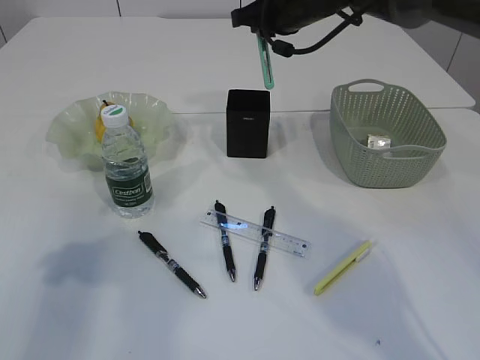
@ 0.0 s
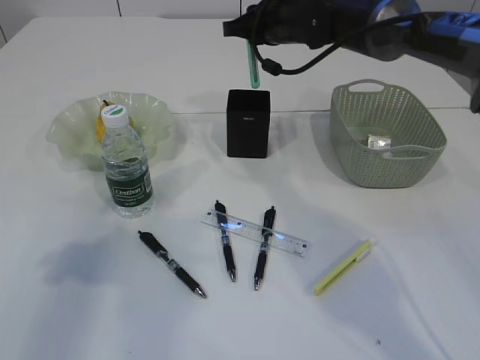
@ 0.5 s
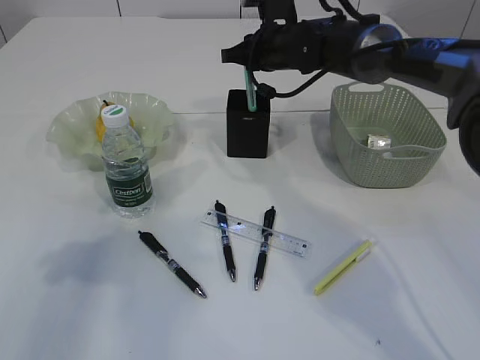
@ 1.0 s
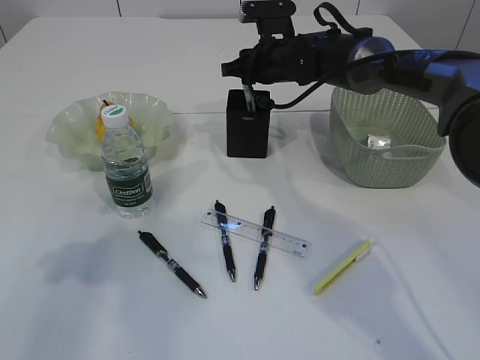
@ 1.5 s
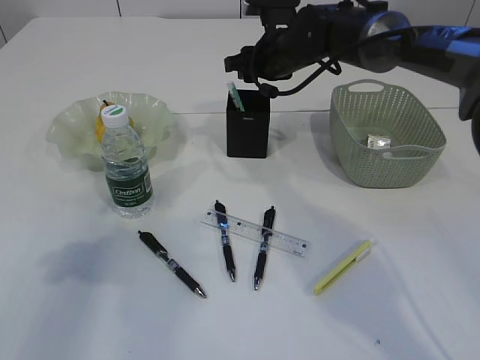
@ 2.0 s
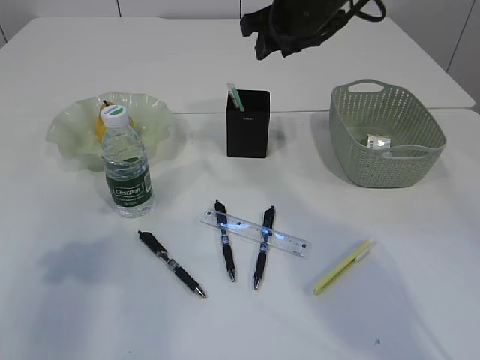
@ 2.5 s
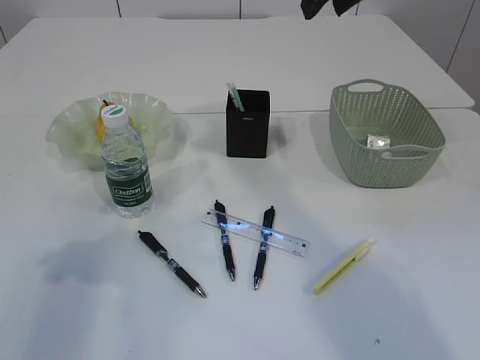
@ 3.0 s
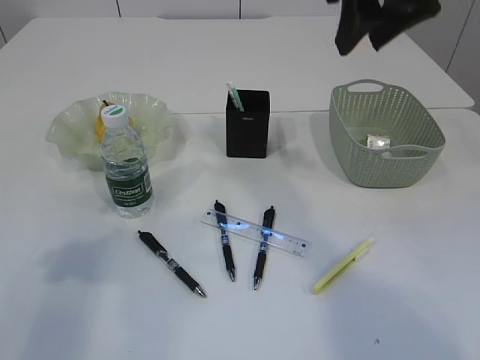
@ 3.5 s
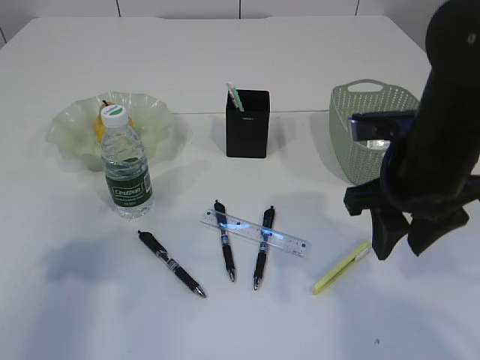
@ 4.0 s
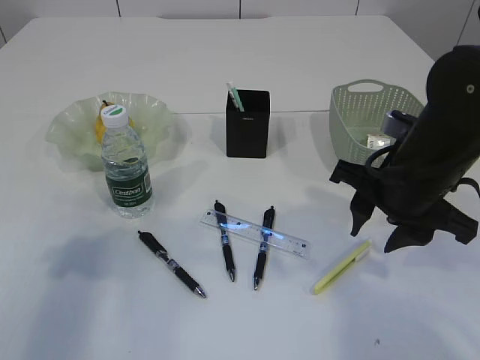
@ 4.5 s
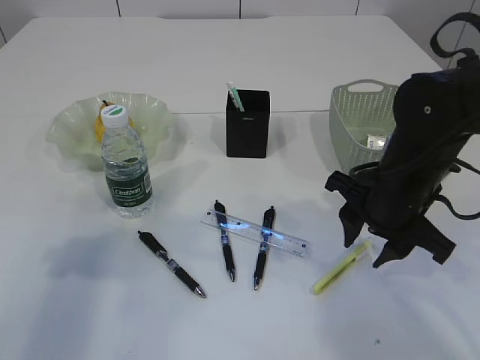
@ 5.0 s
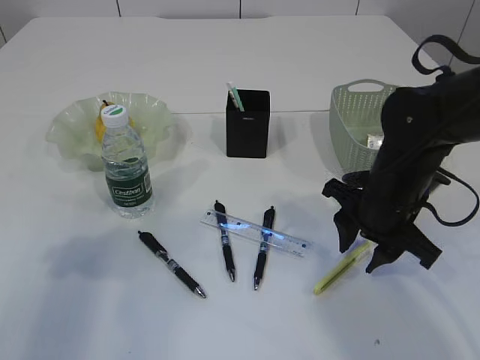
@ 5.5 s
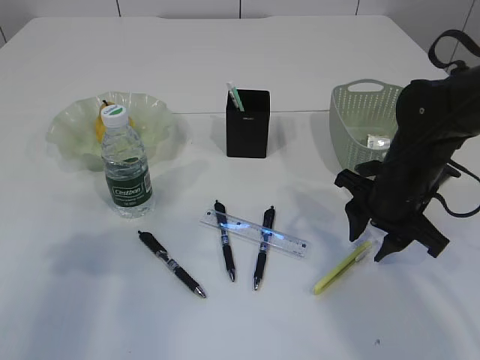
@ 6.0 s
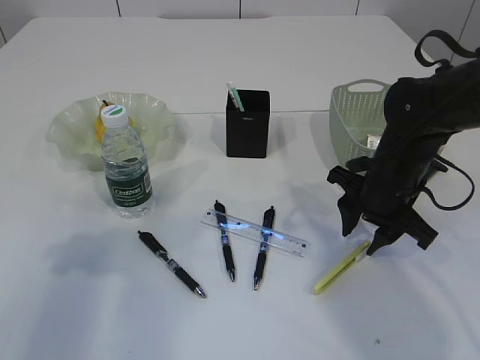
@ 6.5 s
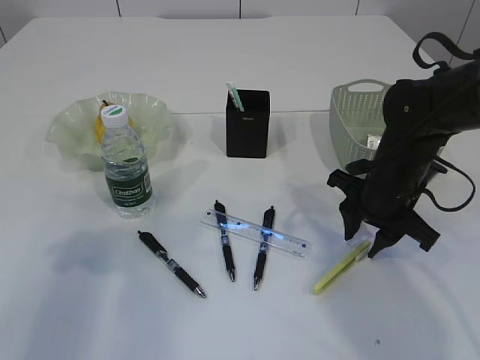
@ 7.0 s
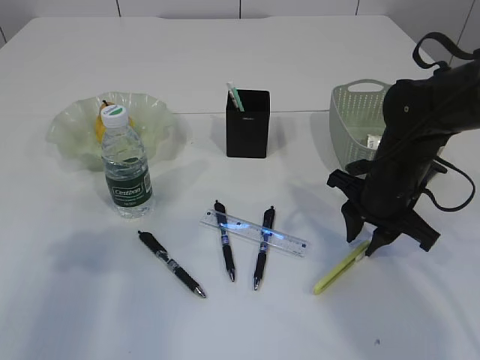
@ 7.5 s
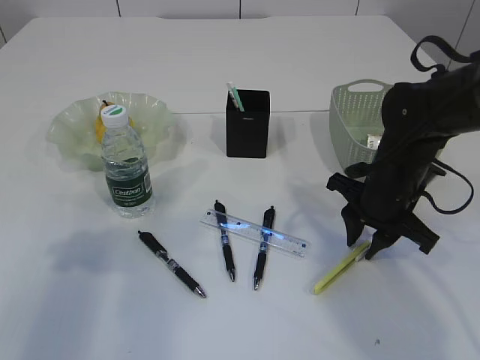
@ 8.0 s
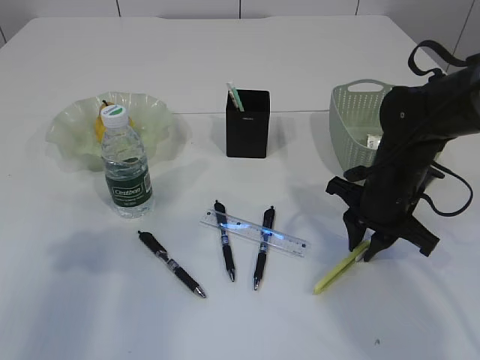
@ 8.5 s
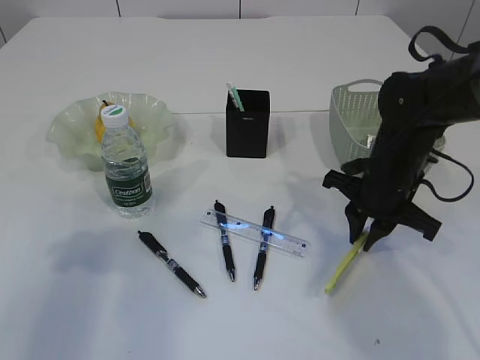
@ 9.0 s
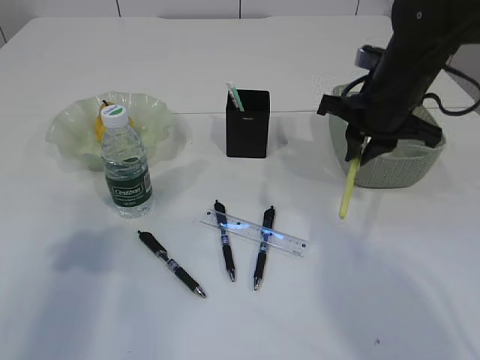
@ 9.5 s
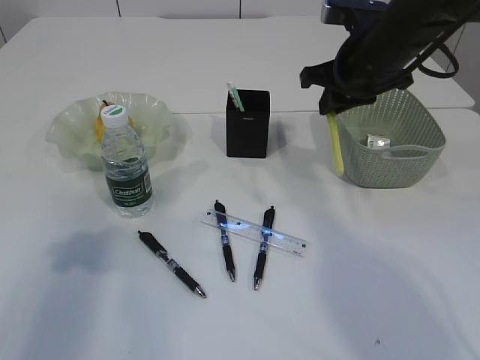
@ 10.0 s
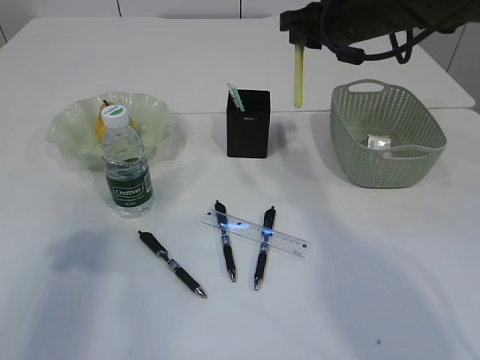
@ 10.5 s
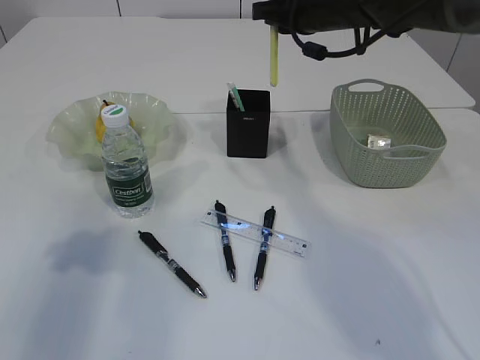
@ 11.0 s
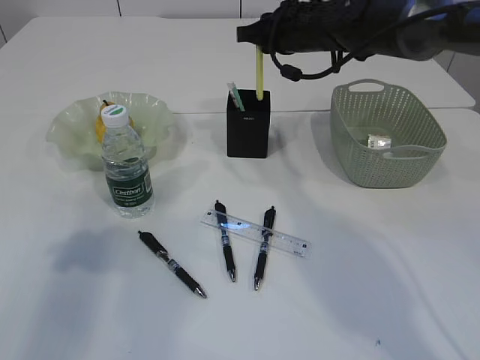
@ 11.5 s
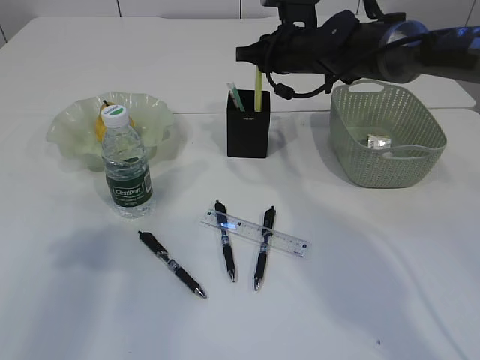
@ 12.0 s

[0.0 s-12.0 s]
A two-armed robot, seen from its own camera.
Step, 0.0 to 3.0 s: Place the blue knife into the pen holder.
Step, 3.5 to 9.5 s: pick up the yellow knife.
0.0 to 2.0 s: The right gripper goes roughly 5 cm downward, and opens its fingers.
2.0 to 4.0 s: The right gripper shifts roughly 25 cm backward.
4.0 to 6.0 s: The right gripper moves downward, roughly 10 cm.
6.0 to 8.0 s: The grippers make only small movements.
8.0 to 10.0 s: The right gripper goes roughly 15 cm upward and forward.
10.0 to 12.0 s: The right gripper is displaced forward and to the left by about 10 cm.

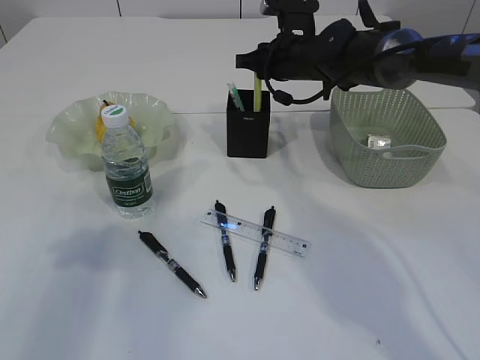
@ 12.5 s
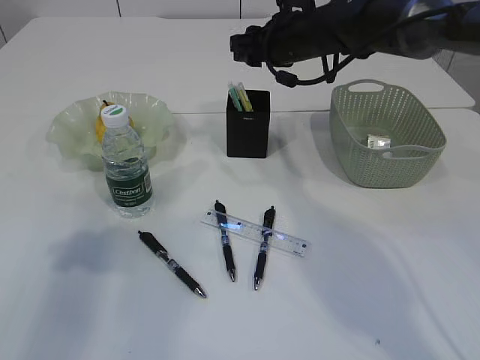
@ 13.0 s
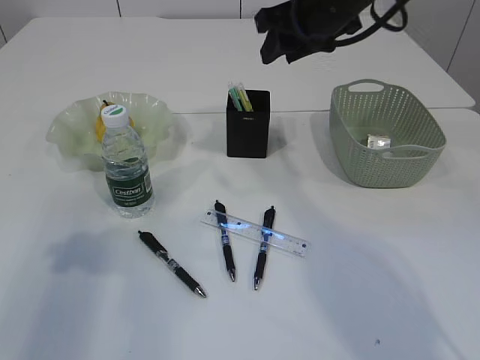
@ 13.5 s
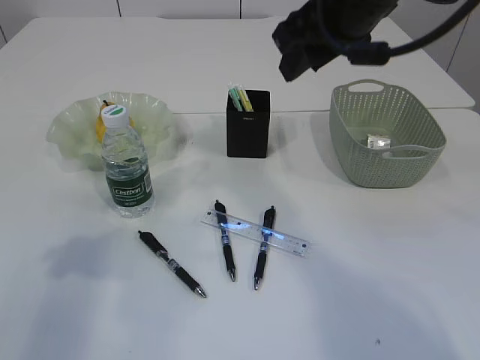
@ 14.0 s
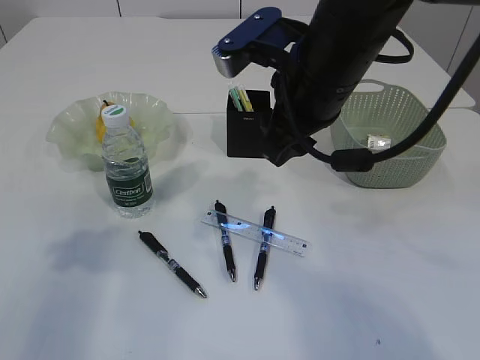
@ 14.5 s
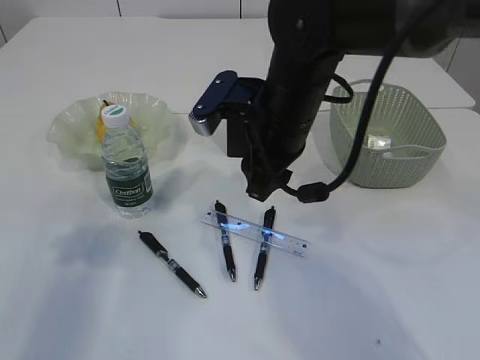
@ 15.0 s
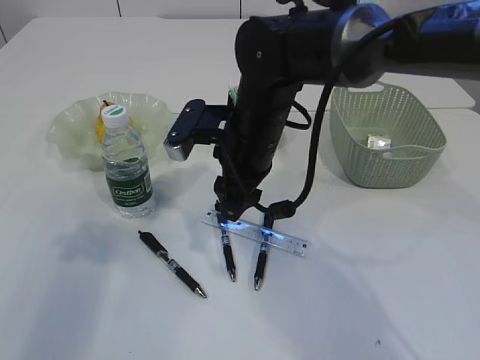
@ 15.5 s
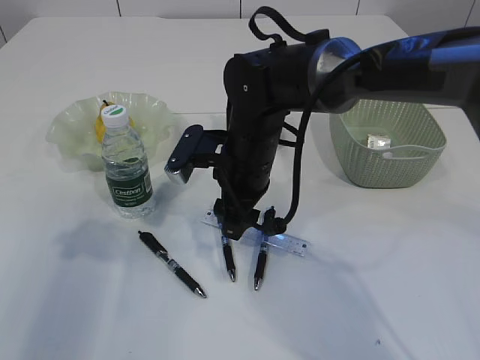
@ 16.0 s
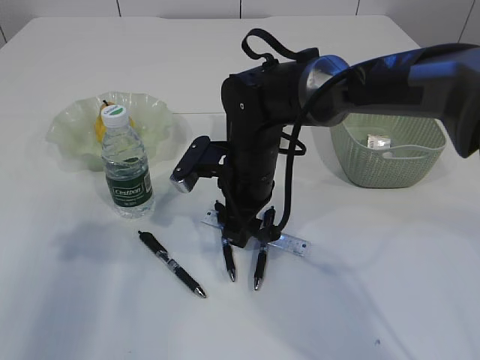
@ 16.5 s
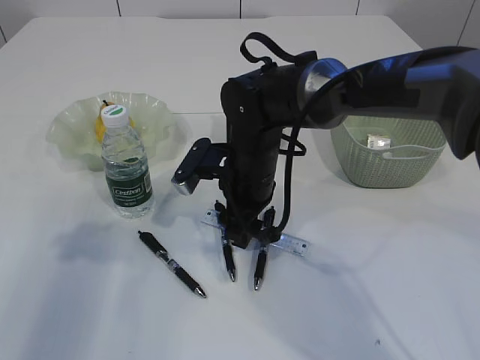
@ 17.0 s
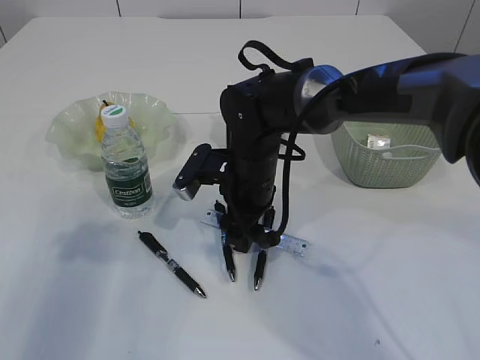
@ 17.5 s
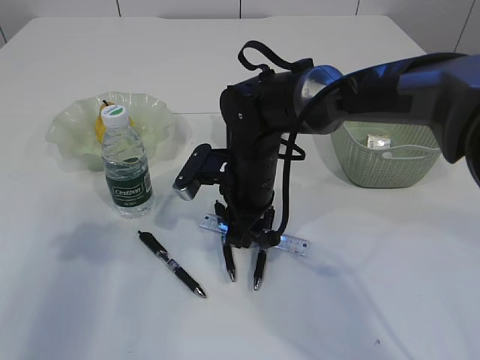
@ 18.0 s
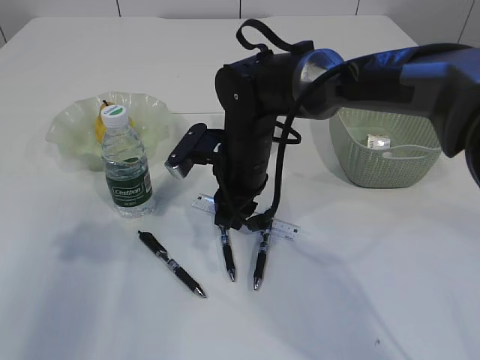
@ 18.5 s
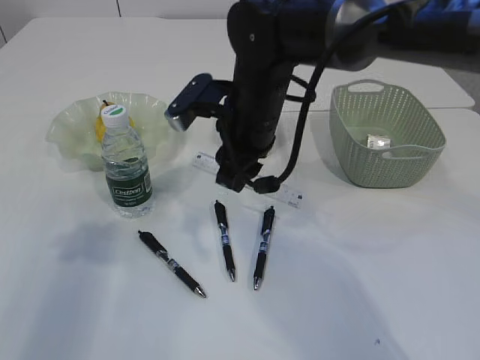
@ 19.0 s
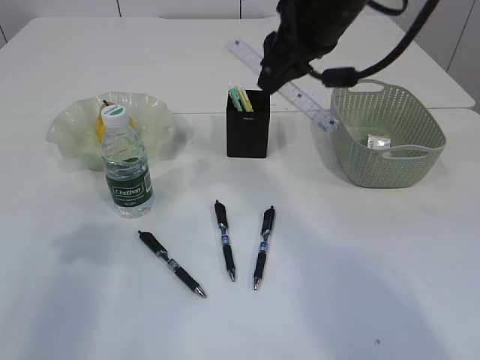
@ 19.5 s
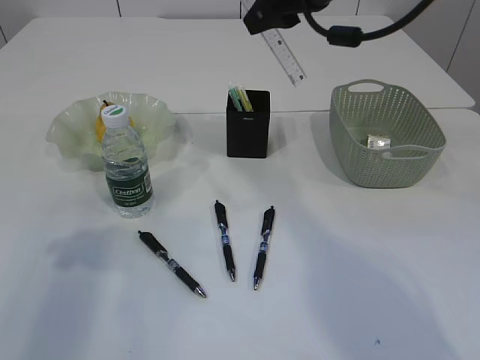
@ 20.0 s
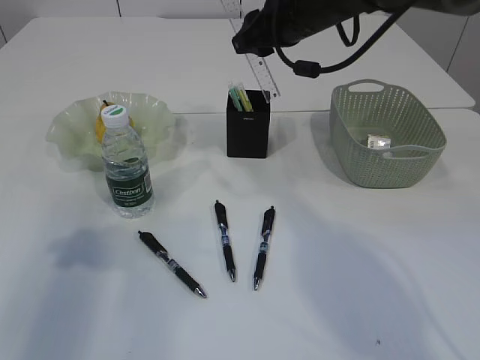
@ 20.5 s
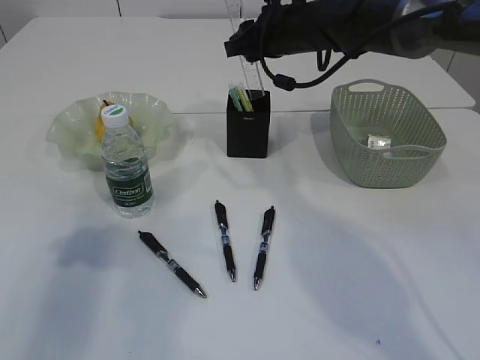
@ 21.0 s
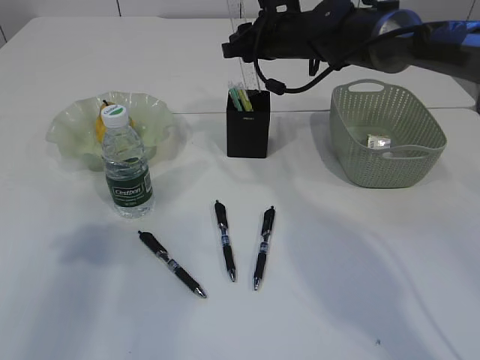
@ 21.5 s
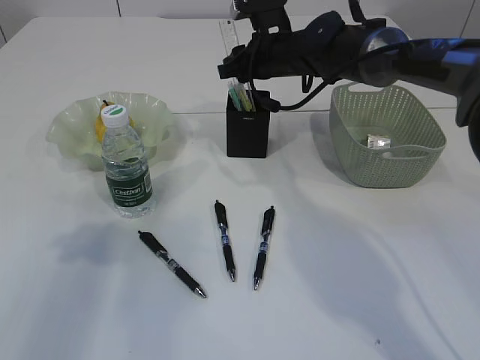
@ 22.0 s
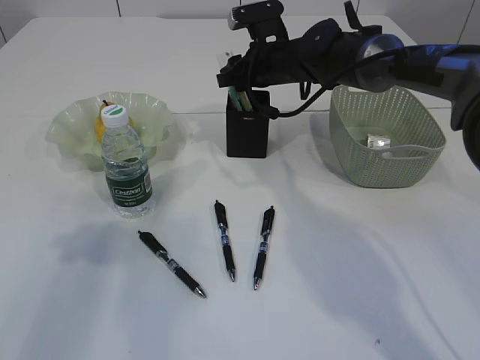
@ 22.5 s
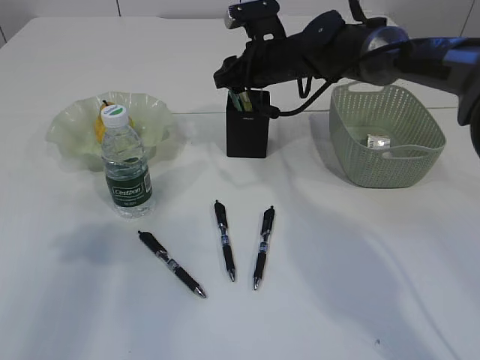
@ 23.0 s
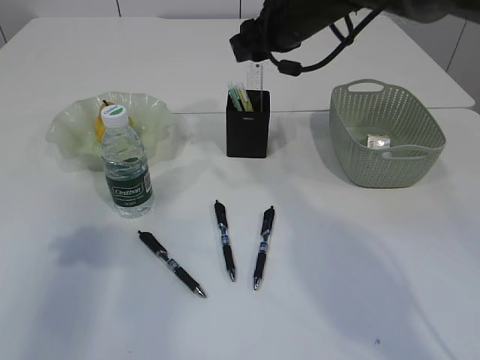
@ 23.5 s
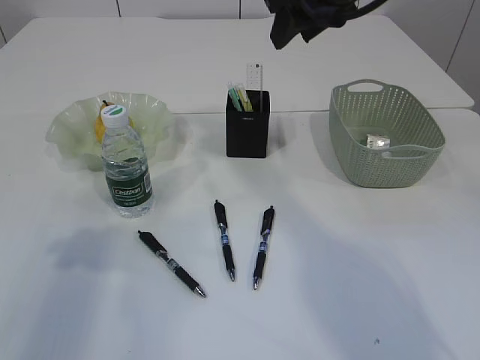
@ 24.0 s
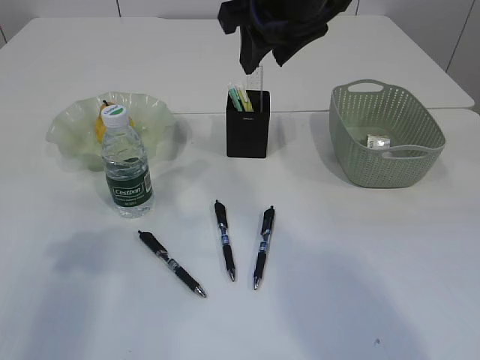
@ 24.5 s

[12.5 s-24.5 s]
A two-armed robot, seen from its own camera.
Step, 12.5 to 14.5 s: place the yellow knife into the pen holder.
Step, 15.0 to 19.0 s: pick up the ruler.
Step, 19.5 to 24.0 s: Place the ruler into the pen holder.
12.5 to 14.5 s: The right gripper goes some 20 cm backward and upward.
14.5 to 16.5 s: The right gripper goes about 15 cm downward.
16.5 to 18.5 s: The right gripper closes its fingers.
18.5 to 20.5 s: The right gripper travels upward, to the right and forward by approximately 20 cm.
20.5 to 22.5 s: The right gripper heads downward and forward, covering roughly 10 cm.
22.5 to 24.5 s: The right gripper is displaced upward and backward by roughly 20 cm.

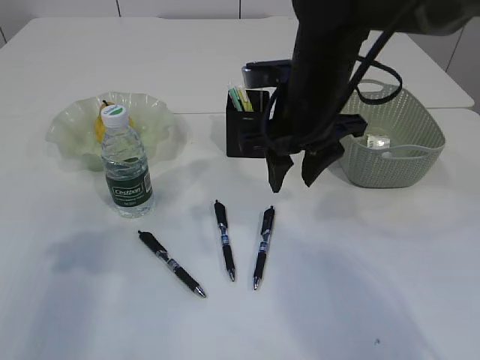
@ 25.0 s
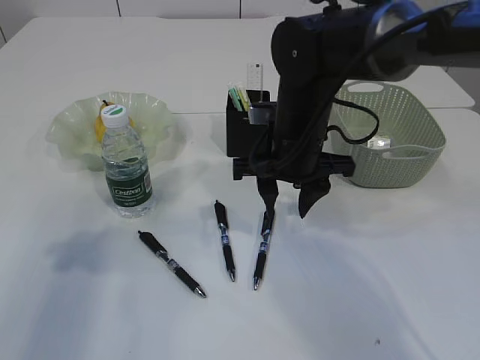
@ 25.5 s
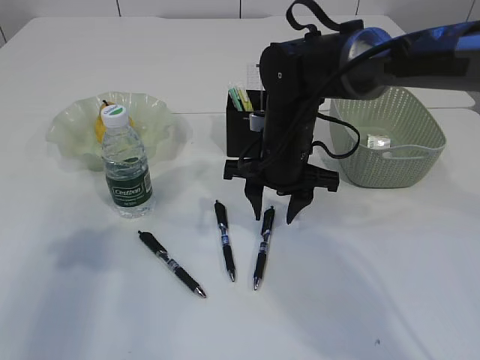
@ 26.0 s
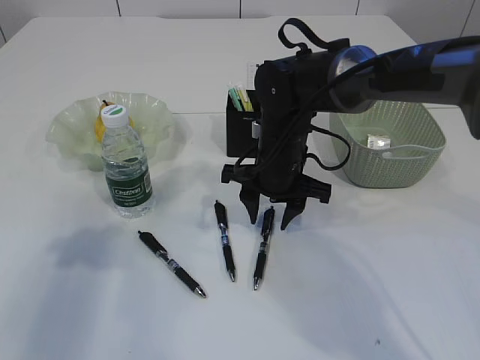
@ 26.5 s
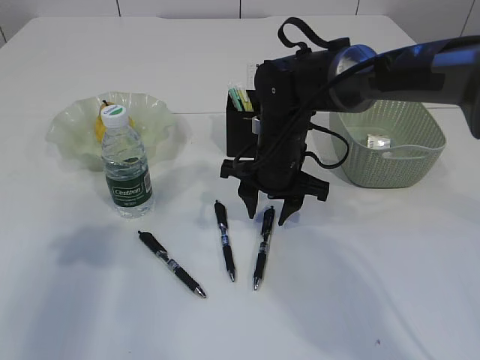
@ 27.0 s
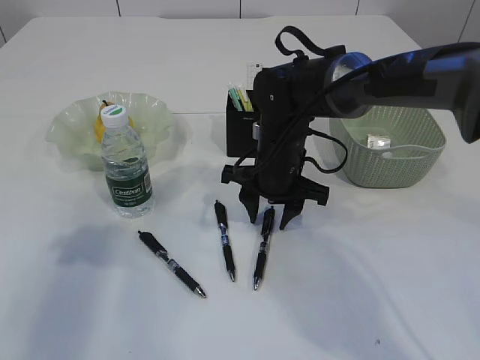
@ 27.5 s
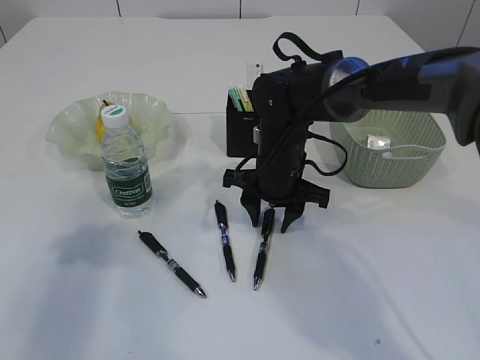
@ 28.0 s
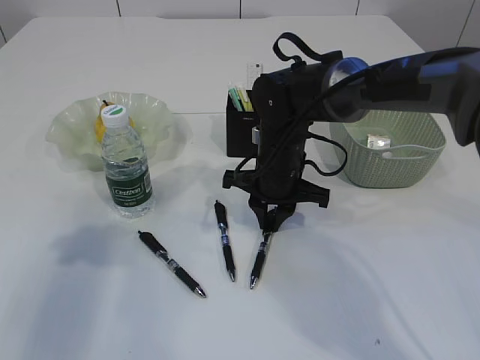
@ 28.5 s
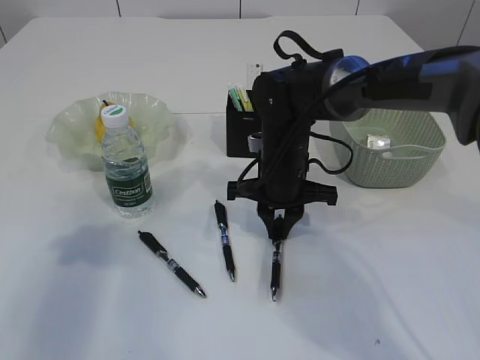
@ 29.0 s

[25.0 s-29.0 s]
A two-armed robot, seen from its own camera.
25.0 to 27.0 s: The right gripper goes about 10 cm downward.
27.0 to 29.0 s: The right gripper closes.
